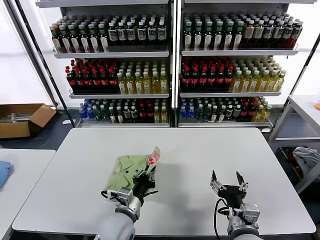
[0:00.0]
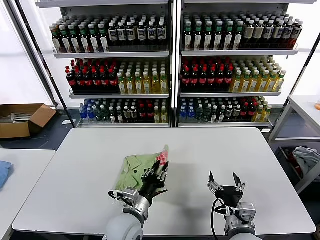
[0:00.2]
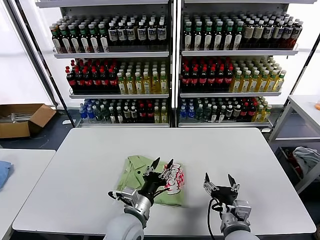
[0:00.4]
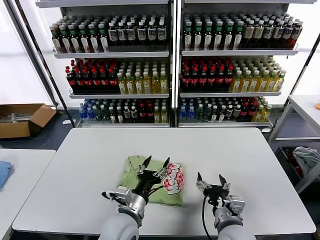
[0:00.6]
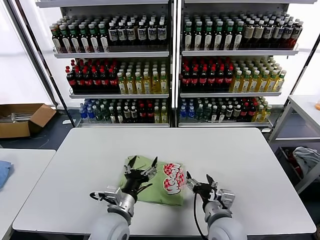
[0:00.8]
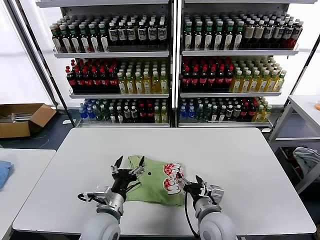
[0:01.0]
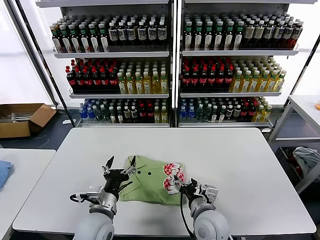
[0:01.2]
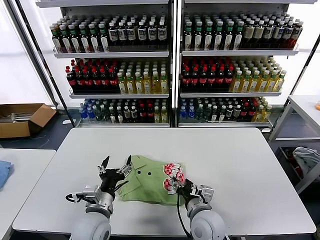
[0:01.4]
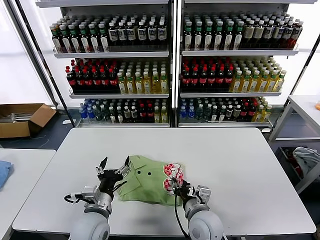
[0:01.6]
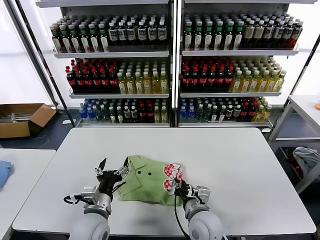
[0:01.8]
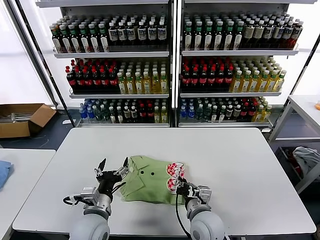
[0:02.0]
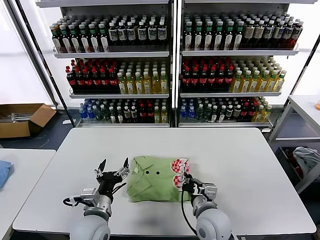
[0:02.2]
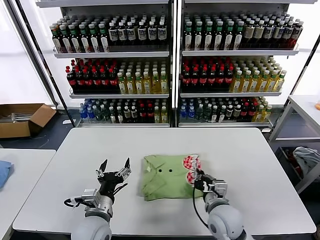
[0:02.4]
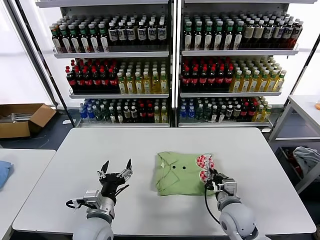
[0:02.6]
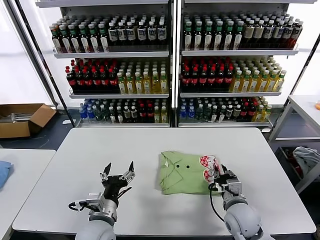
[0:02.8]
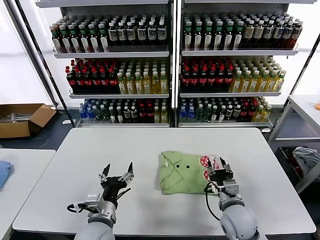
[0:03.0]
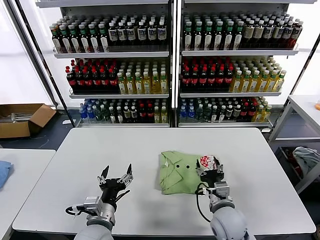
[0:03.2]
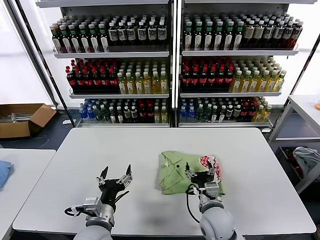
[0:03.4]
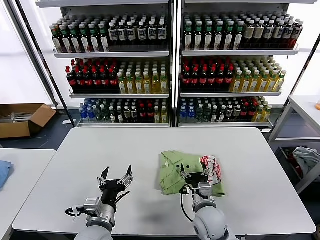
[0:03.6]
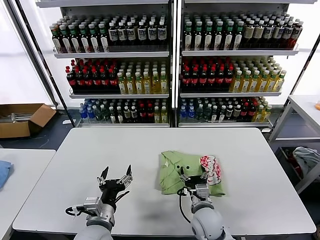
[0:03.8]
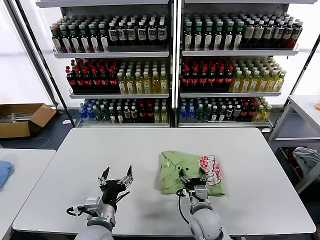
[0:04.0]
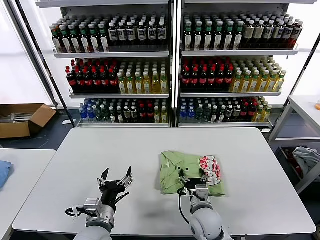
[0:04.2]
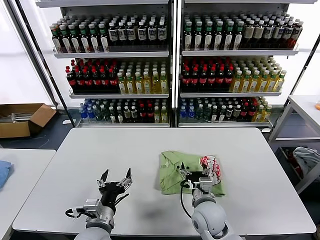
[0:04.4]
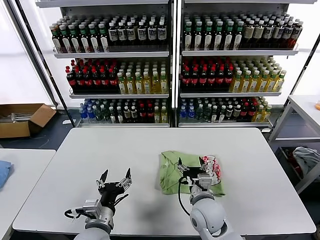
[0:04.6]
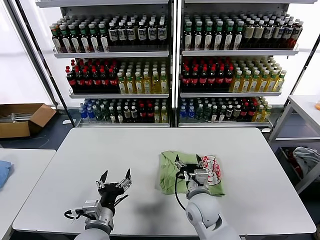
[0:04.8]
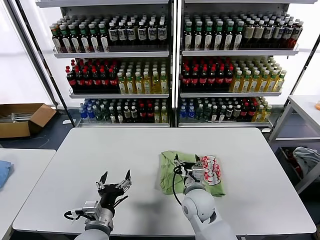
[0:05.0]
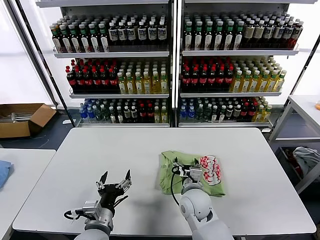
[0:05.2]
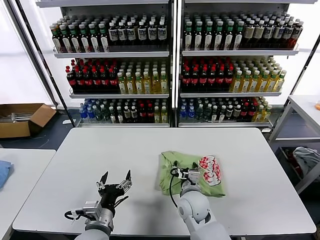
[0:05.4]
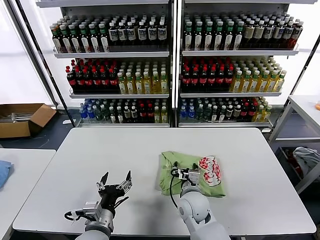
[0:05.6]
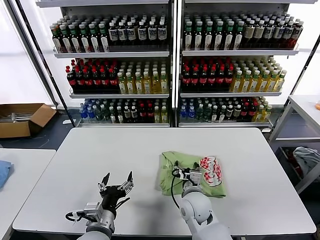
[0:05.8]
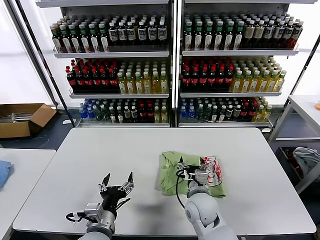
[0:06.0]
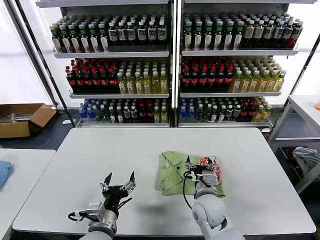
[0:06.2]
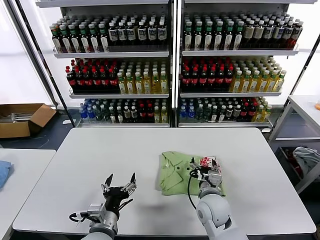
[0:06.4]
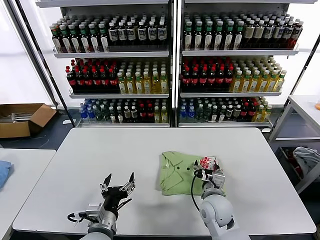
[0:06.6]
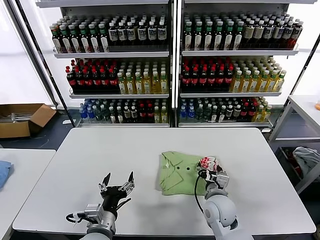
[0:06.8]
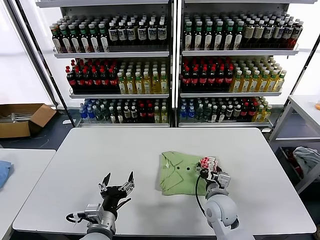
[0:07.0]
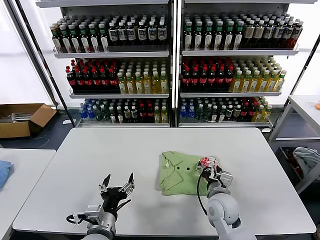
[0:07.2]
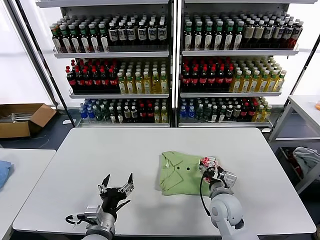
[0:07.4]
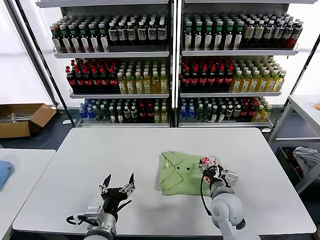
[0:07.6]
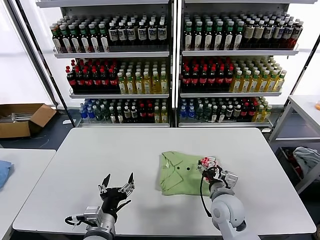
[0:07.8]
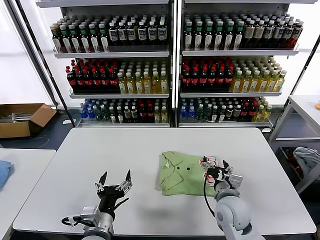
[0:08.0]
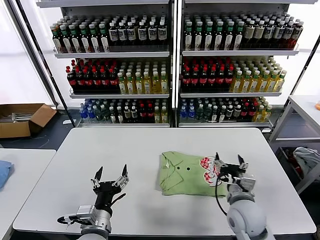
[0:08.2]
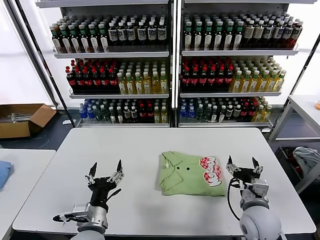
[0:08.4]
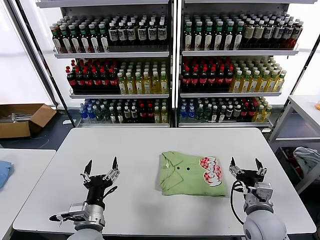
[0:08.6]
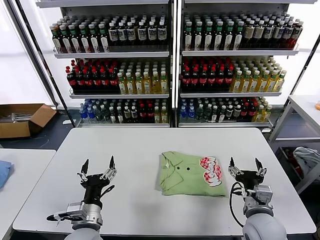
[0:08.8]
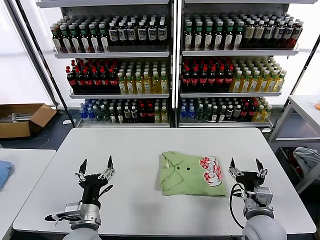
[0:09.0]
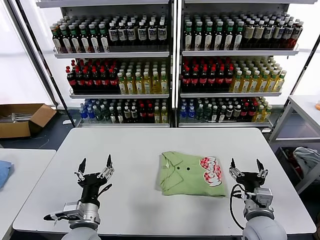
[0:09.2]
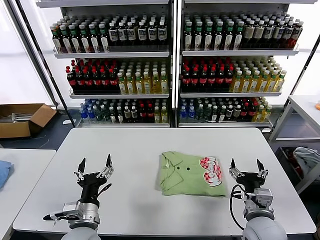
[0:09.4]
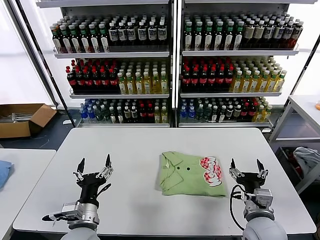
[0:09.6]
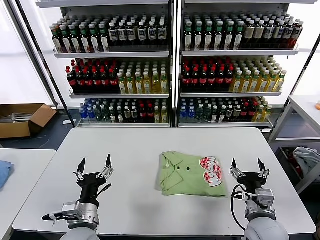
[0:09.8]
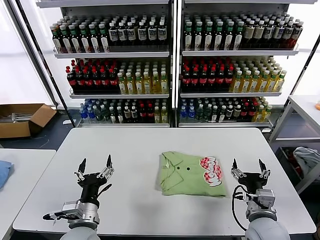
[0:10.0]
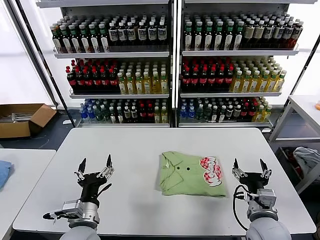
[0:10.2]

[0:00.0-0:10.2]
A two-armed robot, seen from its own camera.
Task of the whole recording: fold and organize the clothes.
Step, 0:00.6 to 0:07.8: Drag the clothes to the center of the table.
0:00.0 to 0:01.4: The left gripper goes approximately 5 cm to the left, and opens its fingers. The right gripper moves to the left and forward, roughly 10 cm.
0:01.4 to 0:03.0: The right gripper goes some 10 cm to the right, and closes, then reopens.
0:03.0 to 0:04.4: The right gripper heads to the left, covering approximately 10 cm, and opens.
0:04.4 to 0:05.8: The right gripper changes place by about 5 cm.
0:05.8 to 0:07.2: The right gripper heads to the right, covering roughly 10 cm.
0:07.2 to 0:08.8: The right gripper shifts about 10 cm backward and to the right.
0:08.8 to 0:10.2: Both grippers stay put.

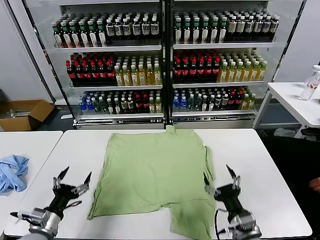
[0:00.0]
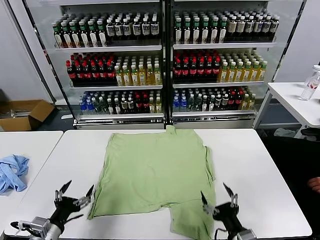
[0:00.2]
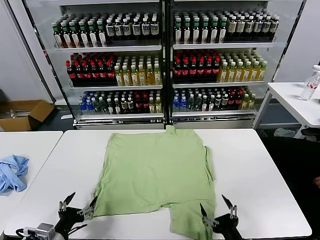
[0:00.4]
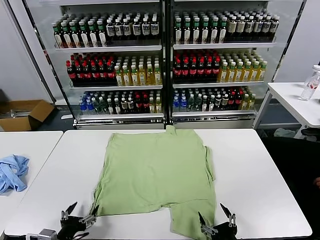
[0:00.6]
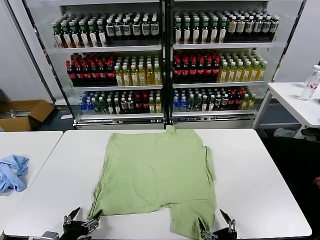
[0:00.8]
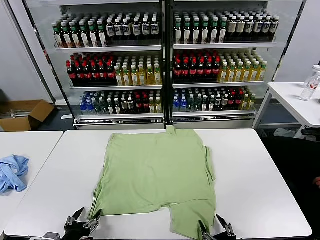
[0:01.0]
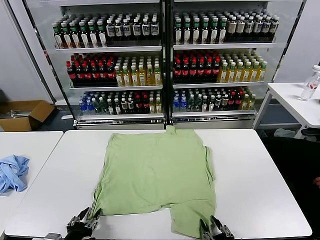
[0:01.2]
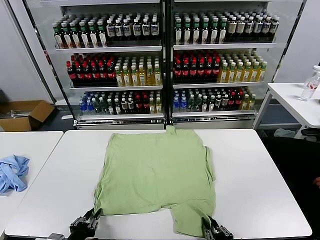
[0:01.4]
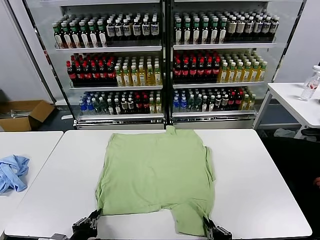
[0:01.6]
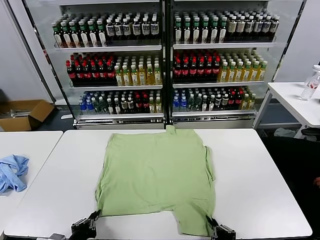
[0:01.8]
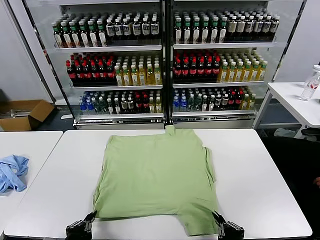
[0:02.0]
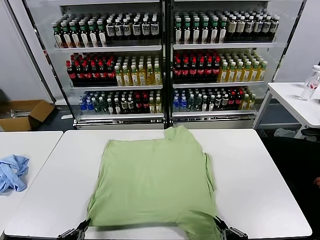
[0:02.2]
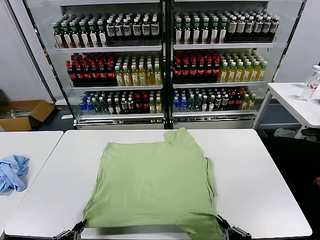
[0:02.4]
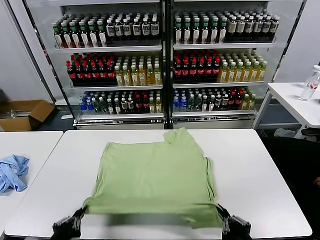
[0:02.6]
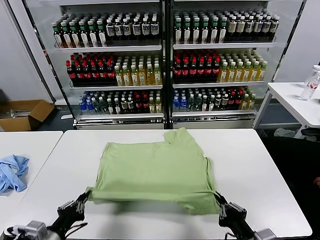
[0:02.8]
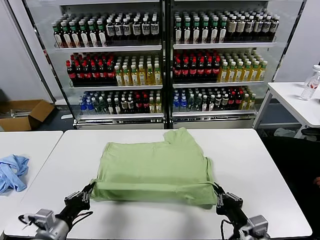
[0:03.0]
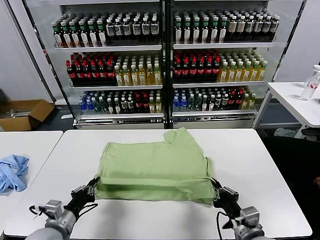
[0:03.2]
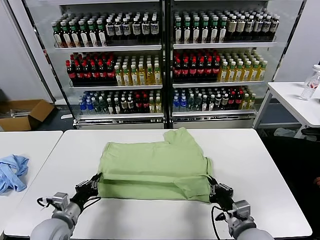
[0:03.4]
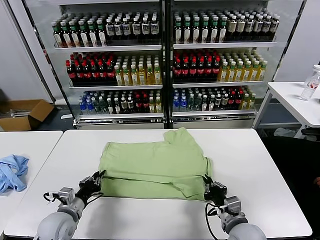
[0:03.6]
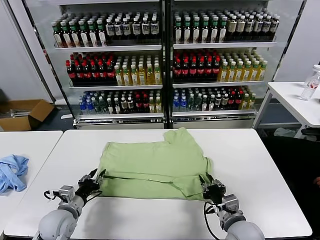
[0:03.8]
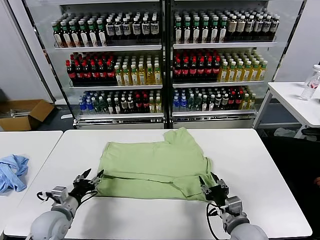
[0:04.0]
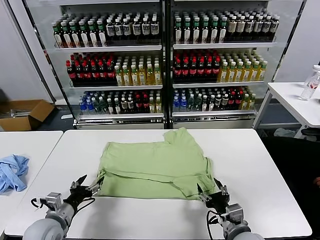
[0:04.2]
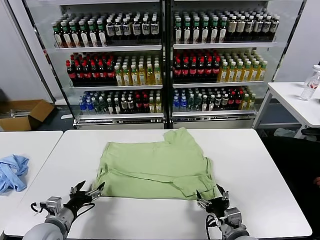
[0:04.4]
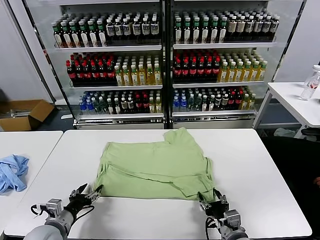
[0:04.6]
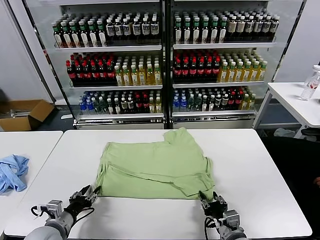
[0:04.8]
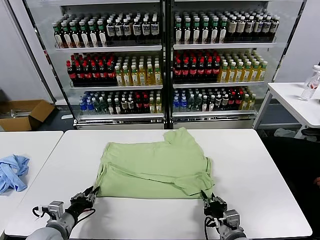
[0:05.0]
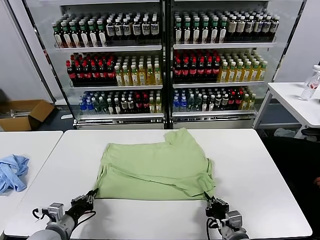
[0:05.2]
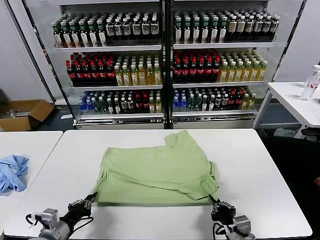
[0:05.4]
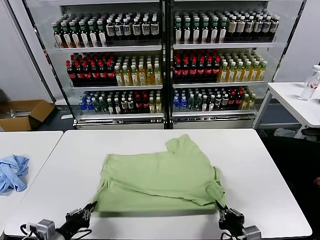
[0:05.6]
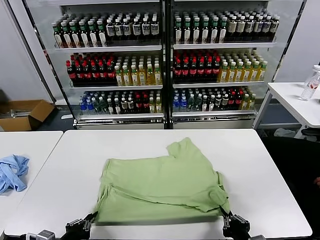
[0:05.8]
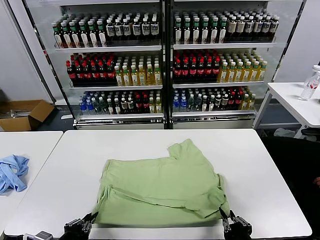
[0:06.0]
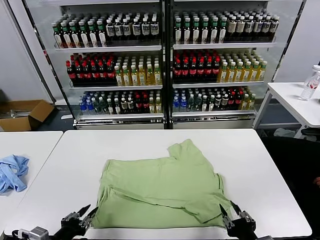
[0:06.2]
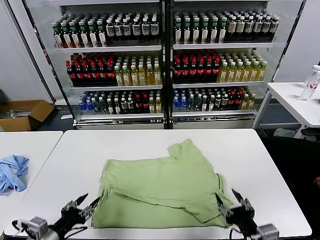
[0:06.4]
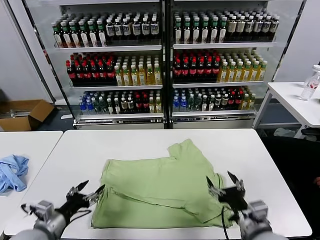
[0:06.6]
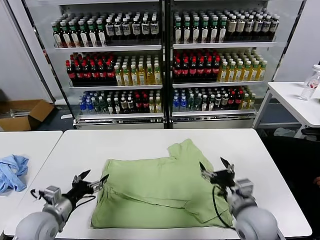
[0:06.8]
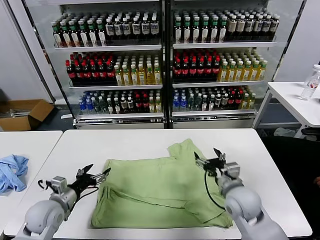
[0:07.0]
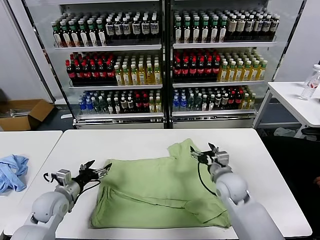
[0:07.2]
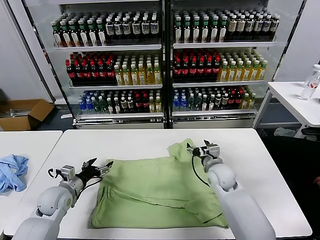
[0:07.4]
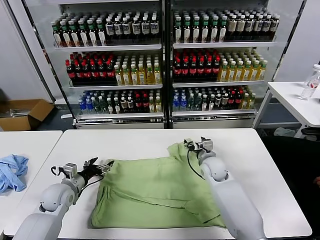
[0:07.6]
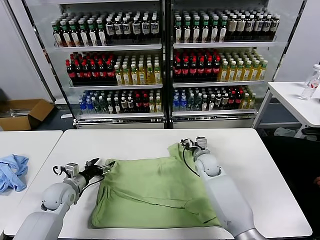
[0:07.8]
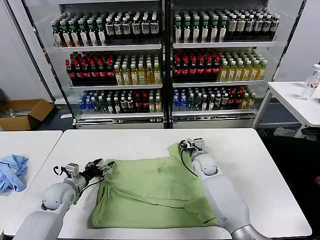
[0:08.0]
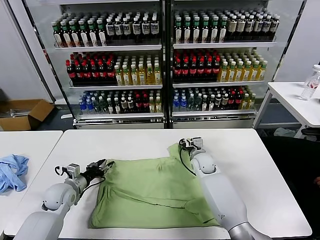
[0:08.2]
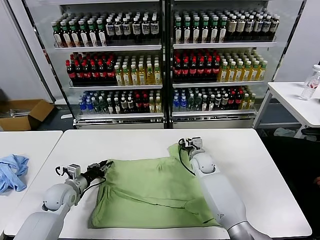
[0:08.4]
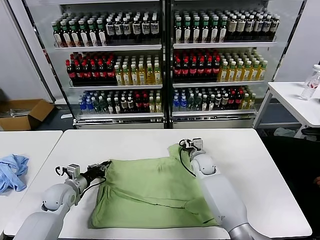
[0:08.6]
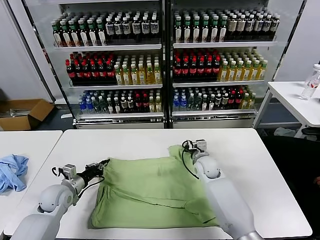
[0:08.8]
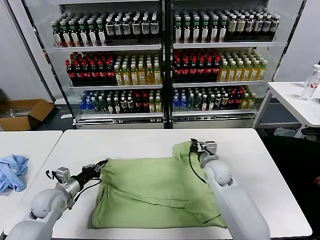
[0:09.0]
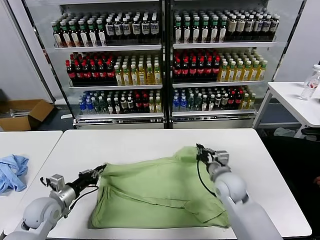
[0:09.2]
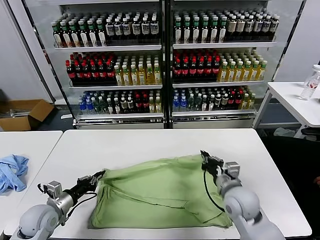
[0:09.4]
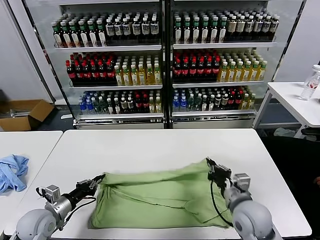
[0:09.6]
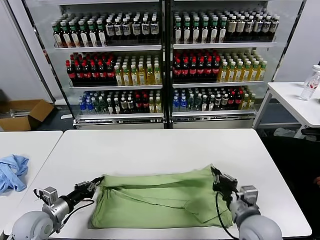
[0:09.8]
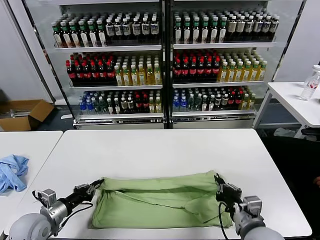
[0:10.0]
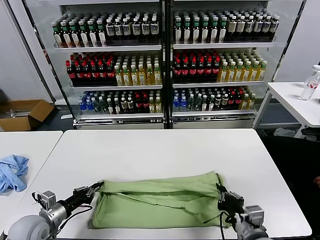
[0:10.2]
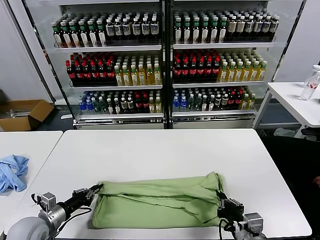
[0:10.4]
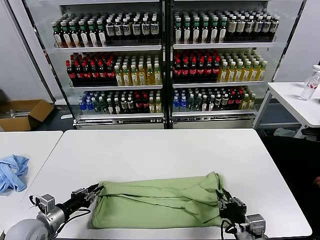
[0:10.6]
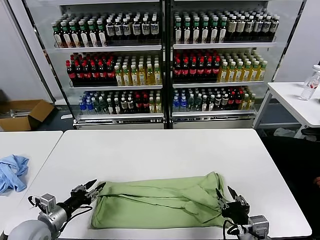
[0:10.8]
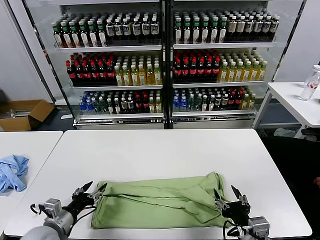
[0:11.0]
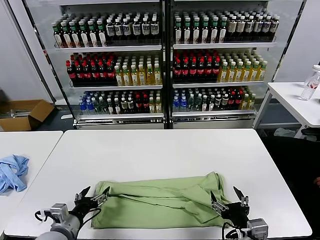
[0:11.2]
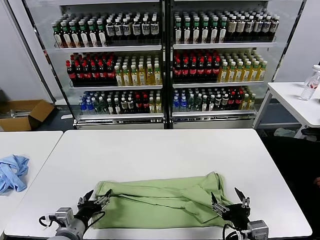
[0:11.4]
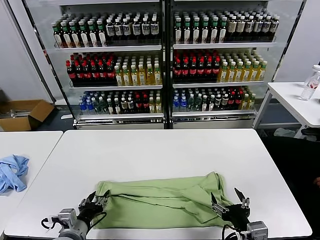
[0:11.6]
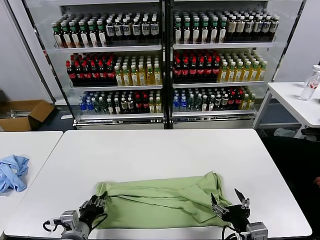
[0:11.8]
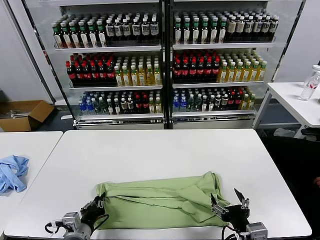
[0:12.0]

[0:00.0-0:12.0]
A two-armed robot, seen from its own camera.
Task of the whole recording: fold and organize the clothes.
Step, 0:00.0 to 0:01.6: use both grippers simultaneously to clamp the lower edge of the clothing fabric.
Step, 0:01.8 to 0:03.8: use both grippers to drag the lower edge of the fabric forward and fold it over the upper edge.
Step, 0:04.0 to 0:06.0: Drag the clothes downward with both gripper.
Step, 0:06.2 to 0:08.6: use both grippers simultaneously to clamp the upper edge of the clothing fabric.
Step, 0:08.8 to 0:10.4: use both grippers to drag the upper edge of the fabric backward and fold it over the lower edge.
Step, 0:10.6 to 0:11.8: use the left gripper to clamp the left edge of the fabric.
0:01.6 to 0:03.0: The right gripper goes roughly 10 cm forward and upward; the left gripper heads forward, covering roughly 5 cm.
0:03.0 to 0:04.4: The right gripper heads downward, covering about 5 cm, and opens its fingers. Meanwhile the left gripper opens up.
0:04.4 to 0:06.0: The left gripper is displaced backward by some 10 cm, and closes its fingers. The right gripper moves backward and upward, roughly 10 cm, and closes.
0:06.0 to 0:07.6: The right gripper shifts some 40 cm forward, and opens, while the left gripper travels forward by approximately 25 cm, and opens up.
0:07.6 to 0:09.0: The left gripper closes up. The right gripper shifts approximately 5 cm backward, and closes its fingers.
0:09.0 to 0:10.4: The left gripper heads backward, covering roughly 10 cm, while the right gripper goes approximately 25 cm backward.
0:10.4 to 0:12.0: The right gripper opens, while the left gripper heads to the right and backward, covering approximately 15 cm, and opens, then closes again.
